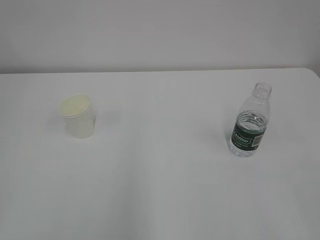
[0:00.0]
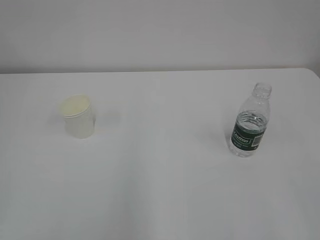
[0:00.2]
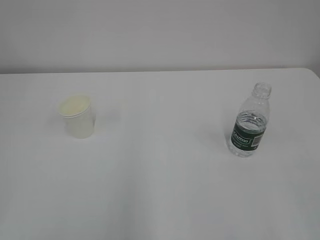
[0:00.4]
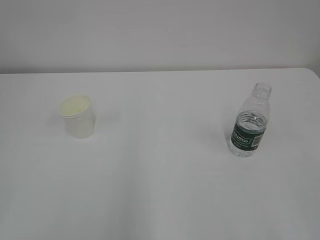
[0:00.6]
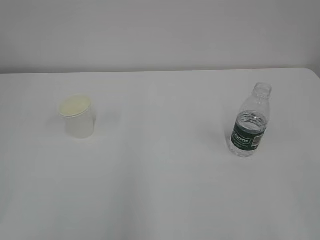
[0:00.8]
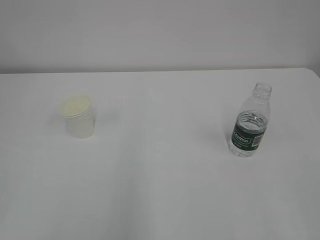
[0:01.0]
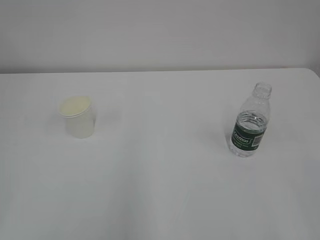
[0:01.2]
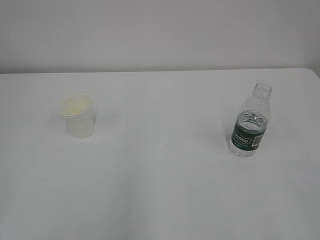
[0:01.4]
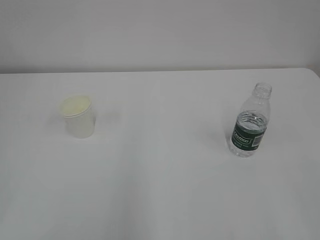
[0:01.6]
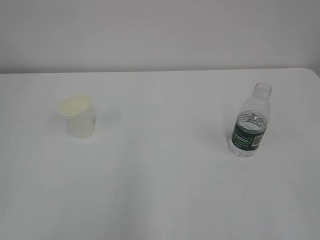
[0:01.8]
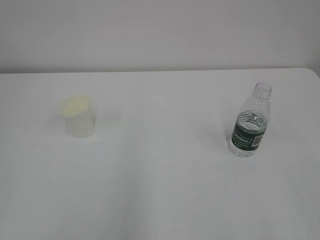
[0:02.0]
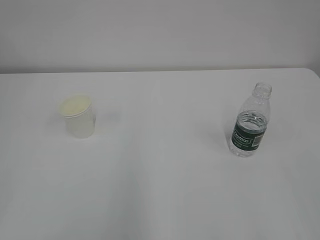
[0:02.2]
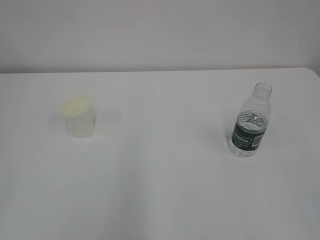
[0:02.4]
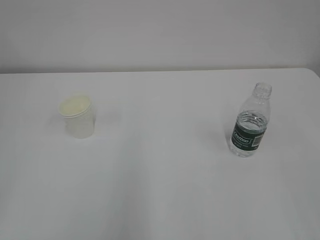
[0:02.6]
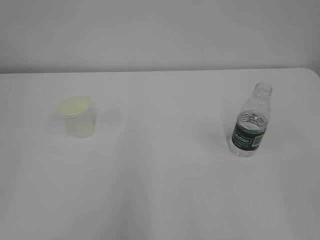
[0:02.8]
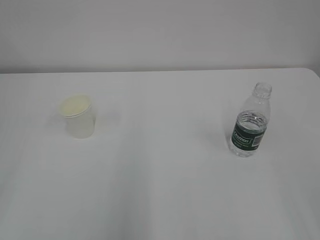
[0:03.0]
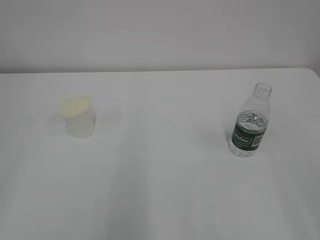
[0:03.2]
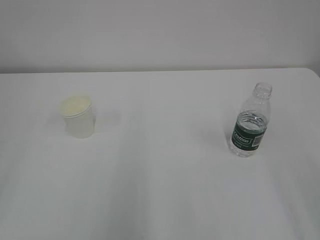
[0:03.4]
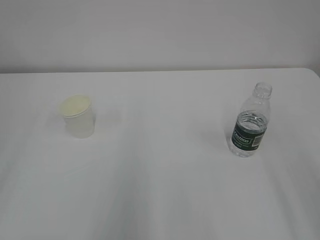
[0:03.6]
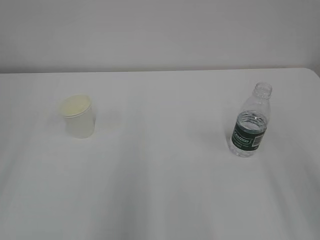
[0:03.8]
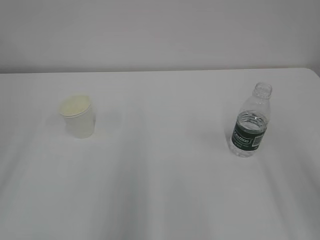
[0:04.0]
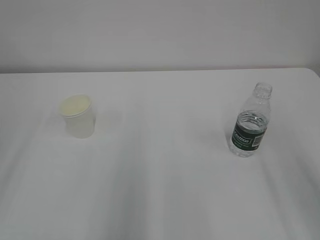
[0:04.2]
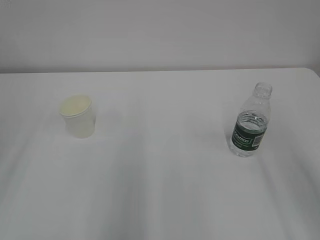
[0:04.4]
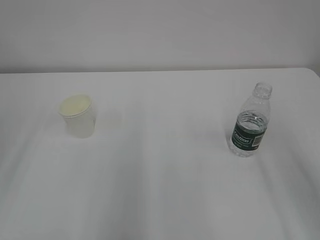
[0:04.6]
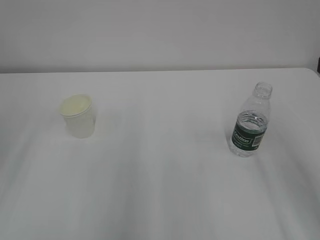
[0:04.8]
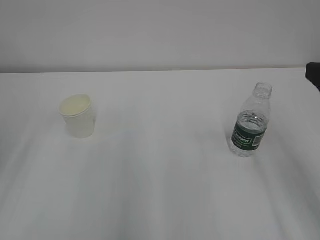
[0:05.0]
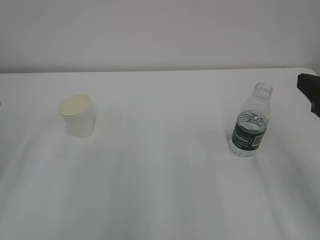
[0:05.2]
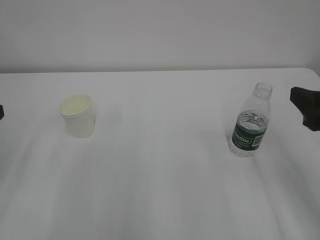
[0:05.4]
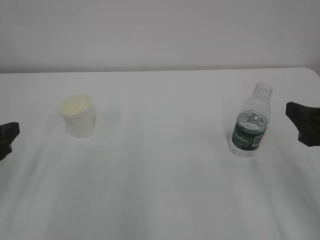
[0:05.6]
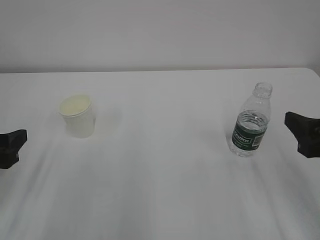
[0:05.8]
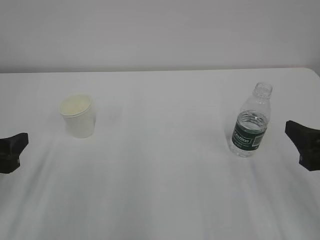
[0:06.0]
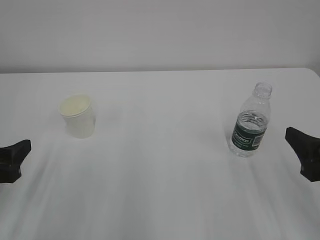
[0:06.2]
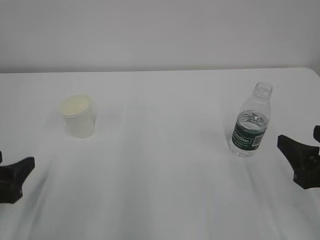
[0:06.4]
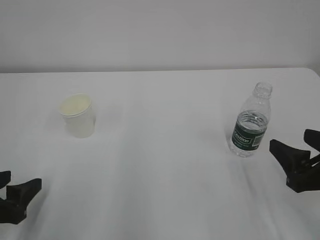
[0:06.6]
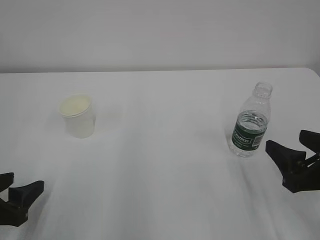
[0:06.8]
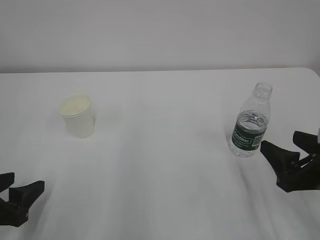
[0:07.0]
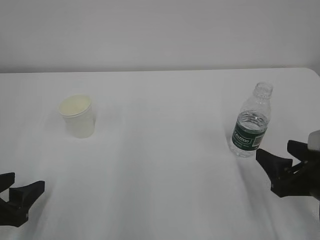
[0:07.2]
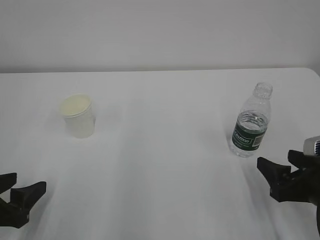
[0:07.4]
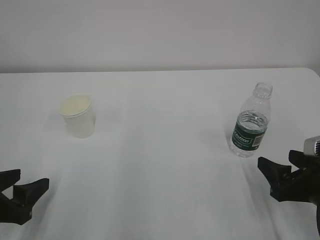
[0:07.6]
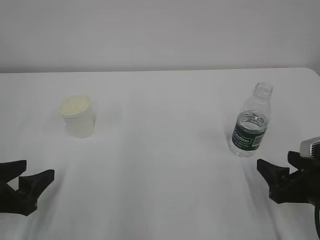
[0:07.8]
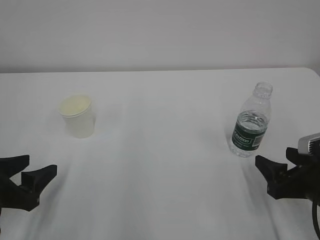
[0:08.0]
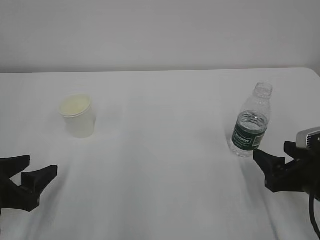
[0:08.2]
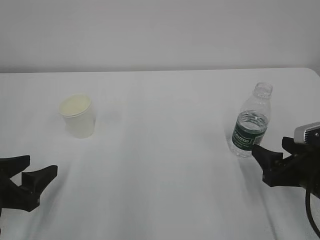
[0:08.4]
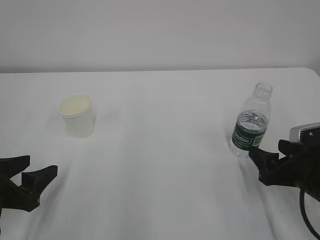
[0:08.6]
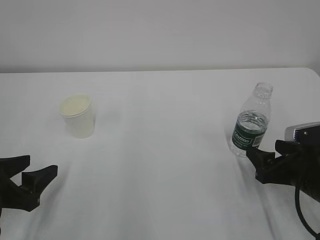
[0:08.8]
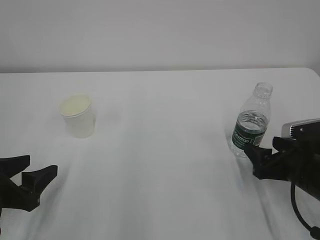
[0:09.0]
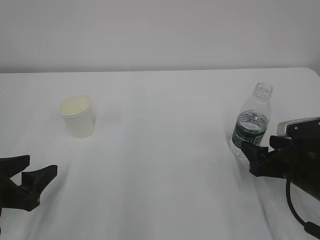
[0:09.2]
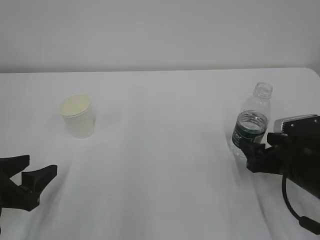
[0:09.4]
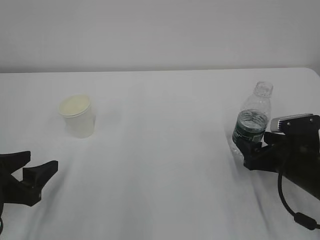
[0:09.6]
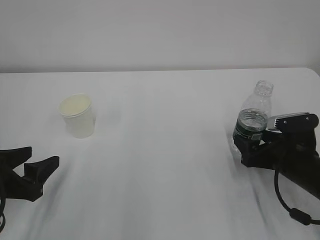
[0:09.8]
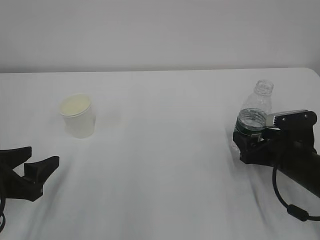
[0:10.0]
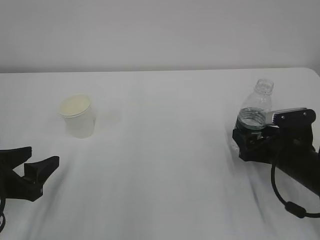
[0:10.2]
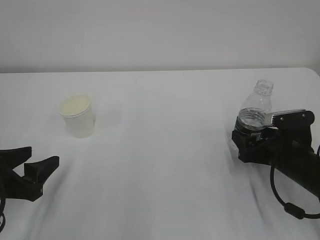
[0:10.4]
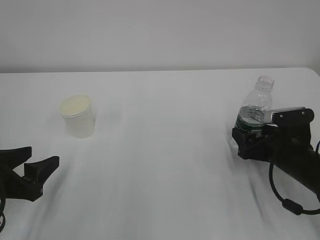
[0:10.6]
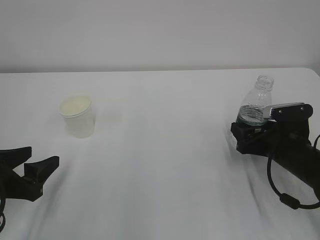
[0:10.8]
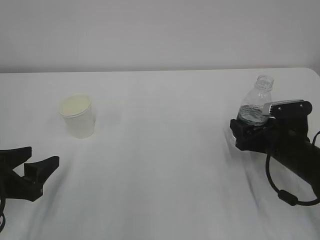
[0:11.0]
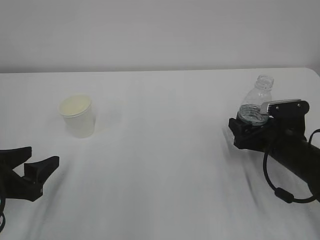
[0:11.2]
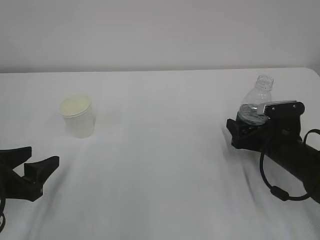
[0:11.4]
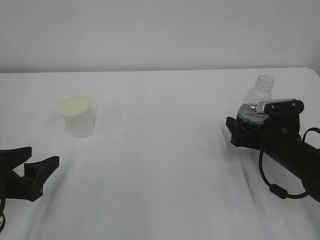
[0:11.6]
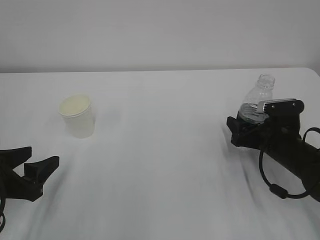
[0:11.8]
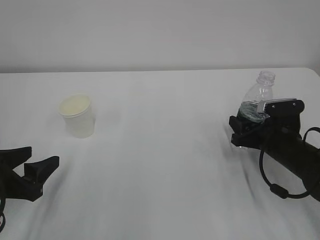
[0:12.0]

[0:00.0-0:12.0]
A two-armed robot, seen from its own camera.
0:04.4 to 0:06.0: The grippers both shift downward by approximately 15 cm.
0:06.0 to 0:07.6: The left gripper moves downward, about 5 cm; the right gripper heads downward, covering some 10 cm.
0:07.6 to 0:09.0: The right gripper ends up about 5 cm from where it was.
0:09.0 to 0:10.4: The right gripper shifts by about 5 cm.
0:10.4 to 0:12.0: The right gripper closes up.

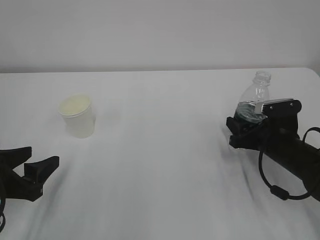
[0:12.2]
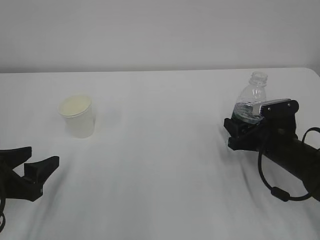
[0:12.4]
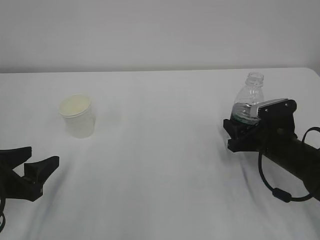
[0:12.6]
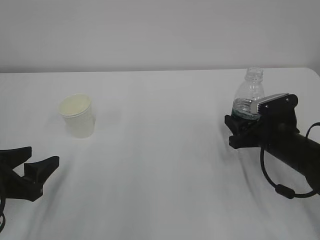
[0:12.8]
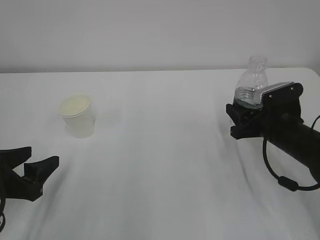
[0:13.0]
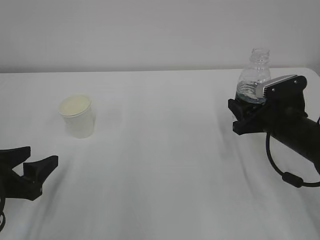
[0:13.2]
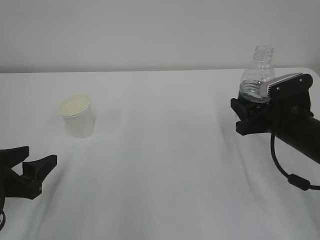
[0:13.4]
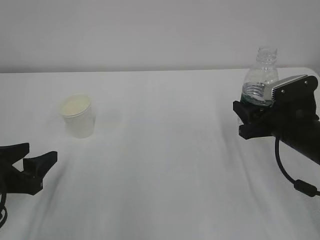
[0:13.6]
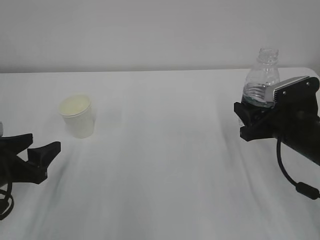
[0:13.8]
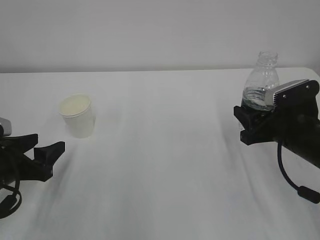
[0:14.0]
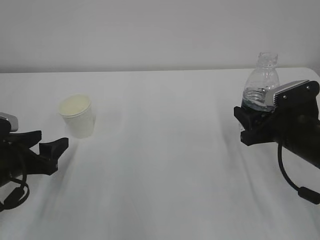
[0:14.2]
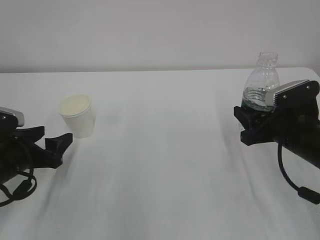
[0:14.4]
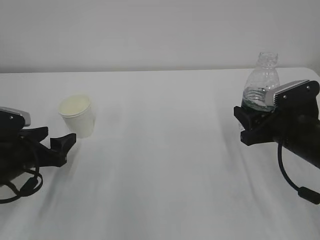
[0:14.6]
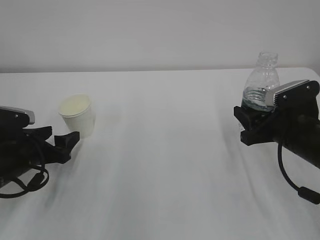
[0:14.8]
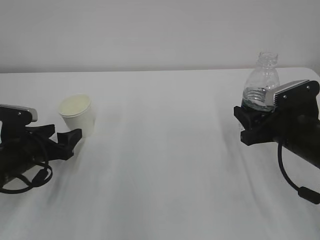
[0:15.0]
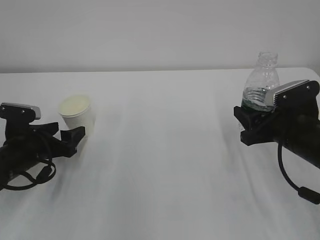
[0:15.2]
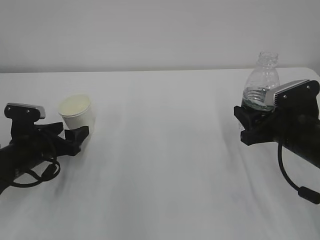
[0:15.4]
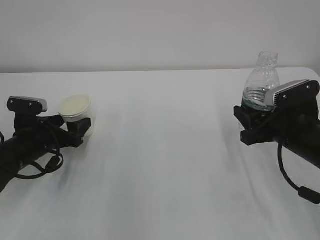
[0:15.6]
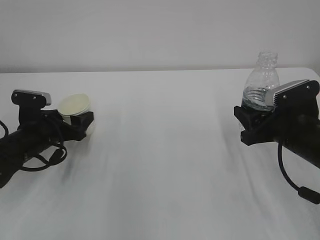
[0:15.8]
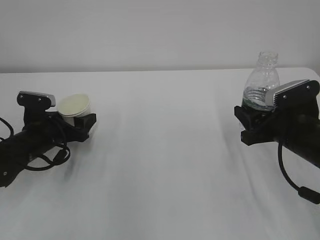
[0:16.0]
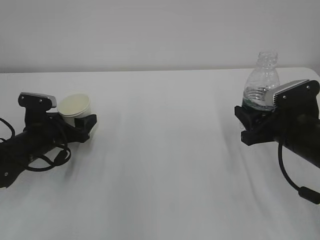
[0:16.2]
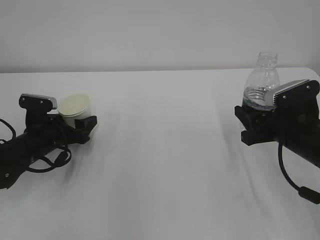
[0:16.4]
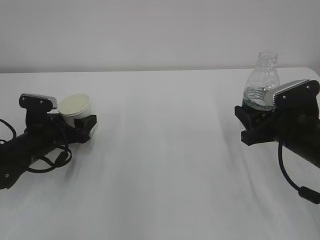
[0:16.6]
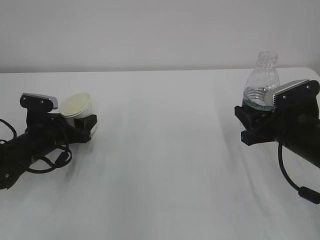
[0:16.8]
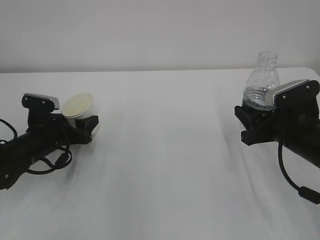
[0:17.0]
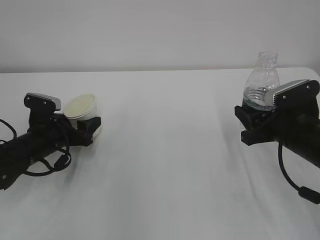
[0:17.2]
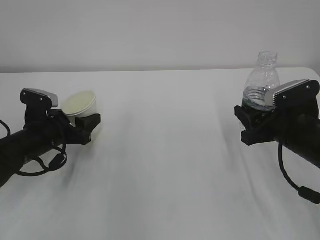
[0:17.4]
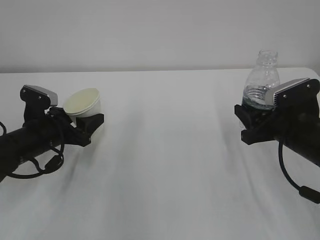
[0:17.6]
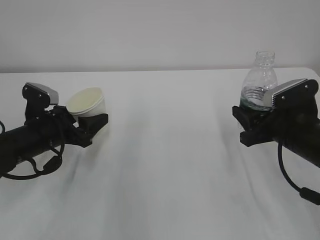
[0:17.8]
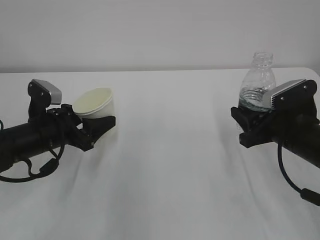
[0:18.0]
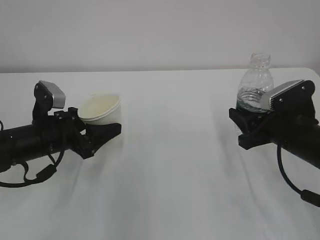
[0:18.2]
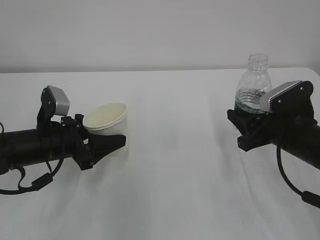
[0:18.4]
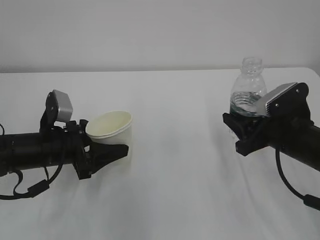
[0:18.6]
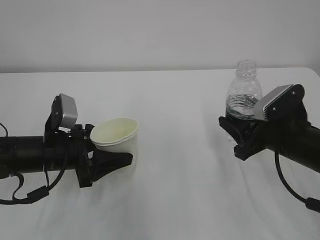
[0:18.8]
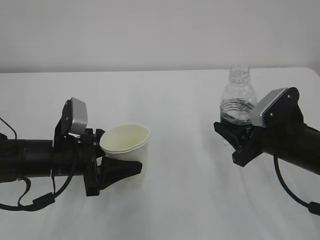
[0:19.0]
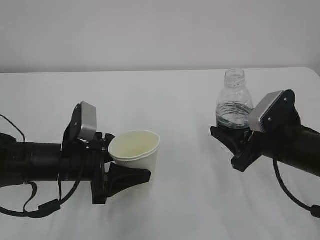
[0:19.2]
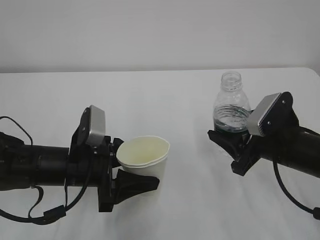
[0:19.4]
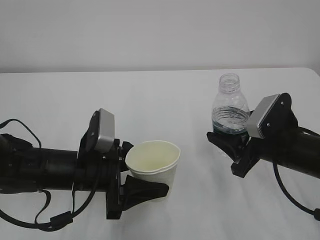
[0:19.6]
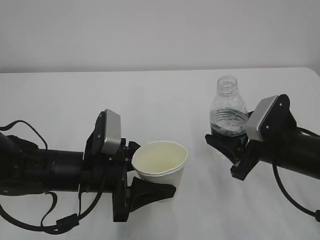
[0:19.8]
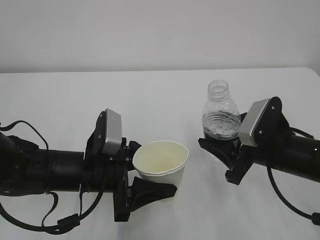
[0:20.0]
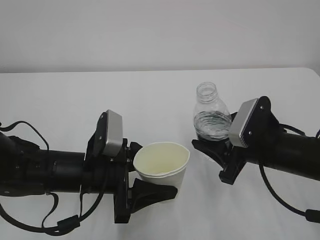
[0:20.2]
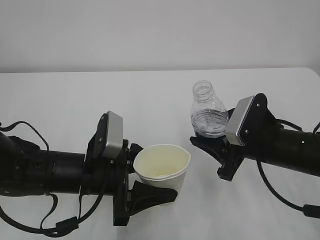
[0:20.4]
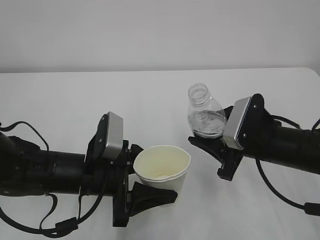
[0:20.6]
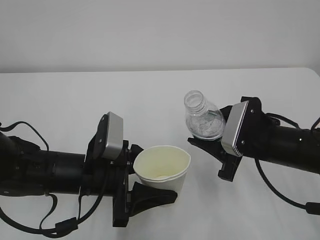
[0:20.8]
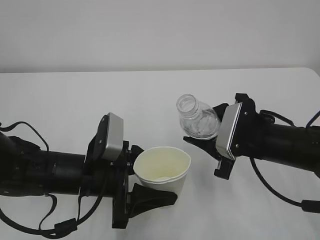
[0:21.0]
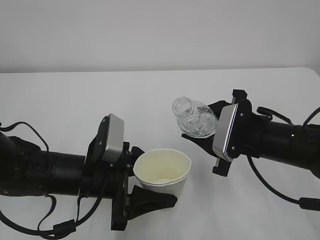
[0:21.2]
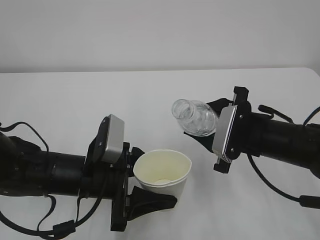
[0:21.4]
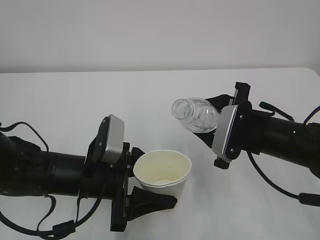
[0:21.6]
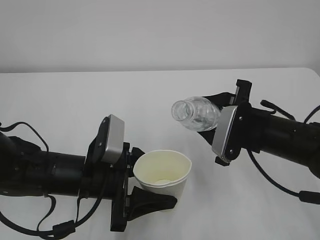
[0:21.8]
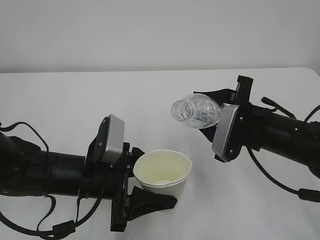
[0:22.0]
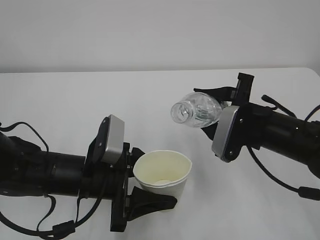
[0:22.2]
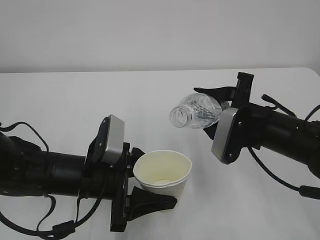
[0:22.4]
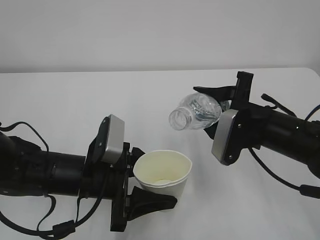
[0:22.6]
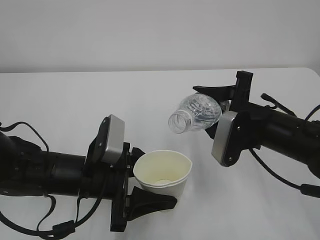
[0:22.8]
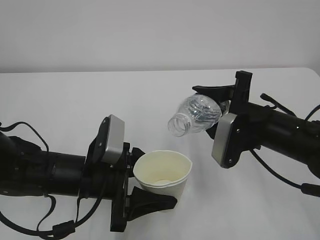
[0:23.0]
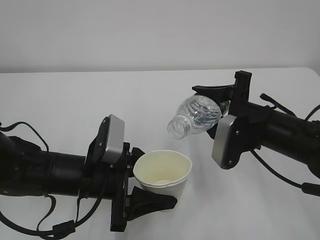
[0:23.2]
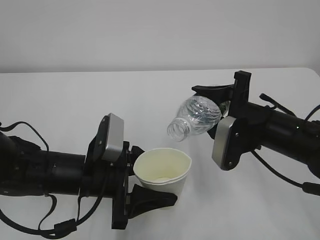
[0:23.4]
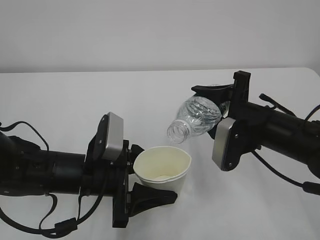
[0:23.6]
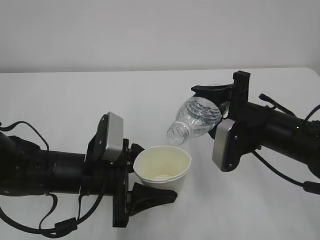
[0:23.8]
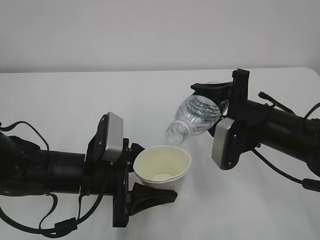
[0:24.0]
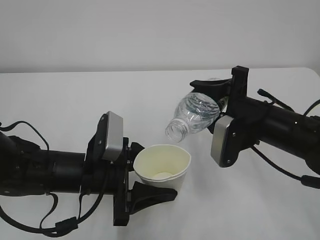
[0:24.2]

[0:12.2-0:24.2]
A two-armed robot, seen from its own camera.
0:12.2 to 0:13.8: The right gripper shifts about 5 cm upward.
0:13.8 to 0:15.2: The left gripper moves forward, roughly 10 cm, and opens up.
0:15.2 to 0:16.6: The left gripper shifts by roughly 5 cm.
0:16.6 to 0:18.2: The left gripper travels upward by about 5 cm, and closes up.
0:18.2 to 0:19.8: The left gripper heads to the right and backward, covering roughly 10 cm.
0:22.6 to 0:24.2: The grippers move only a little.
